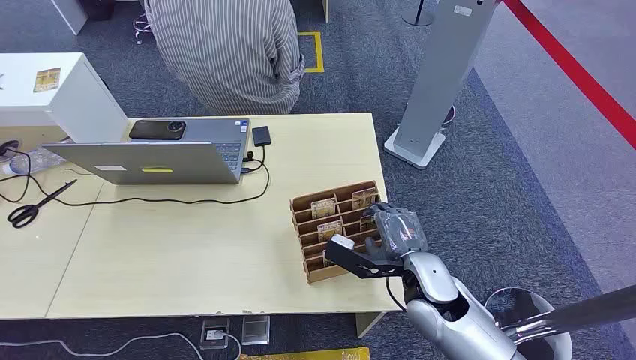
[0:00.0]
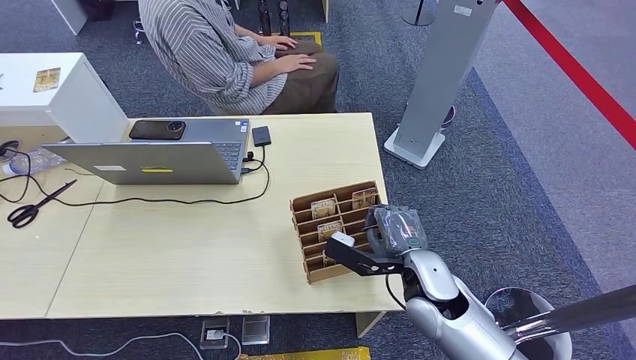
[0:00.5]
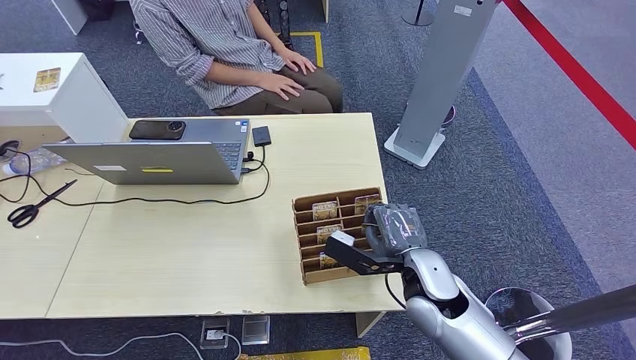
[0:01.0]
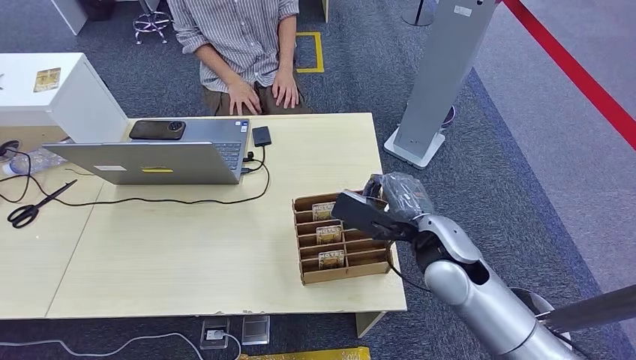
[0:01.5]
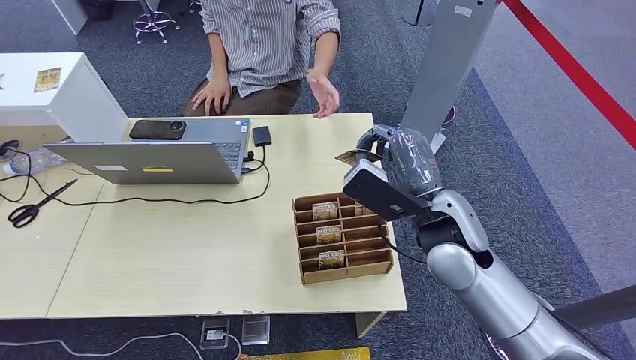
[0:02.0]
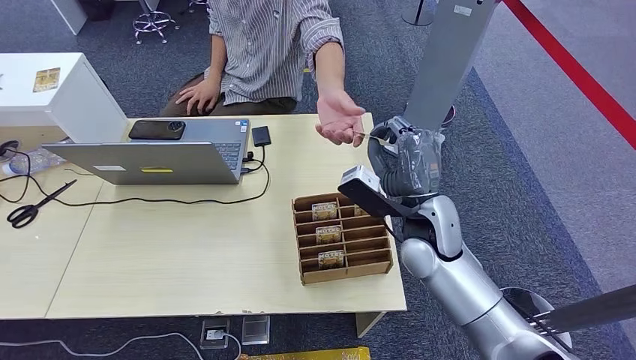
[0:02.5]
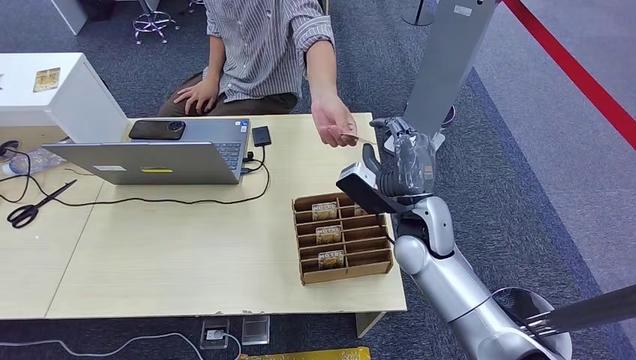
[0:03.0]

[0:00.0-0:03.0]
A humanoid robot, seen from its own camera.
Step, 0:00.0 to 0:01.5: Pick up the key card from the card box.
0:01.5 to 0:03.0: The right hand changes place by approximately 5 cm.
